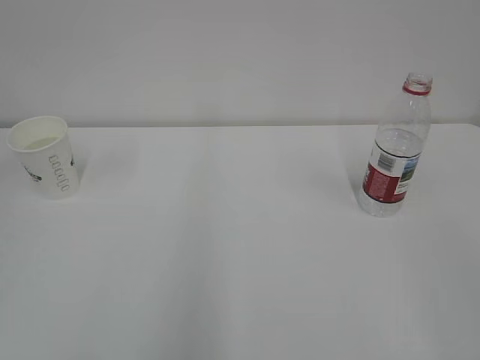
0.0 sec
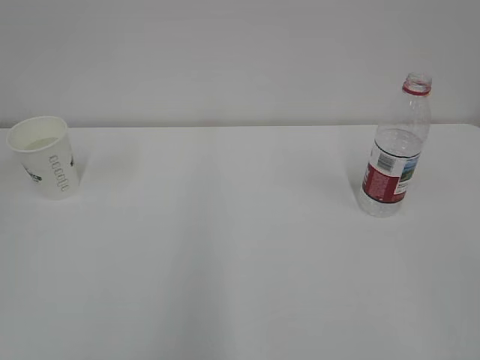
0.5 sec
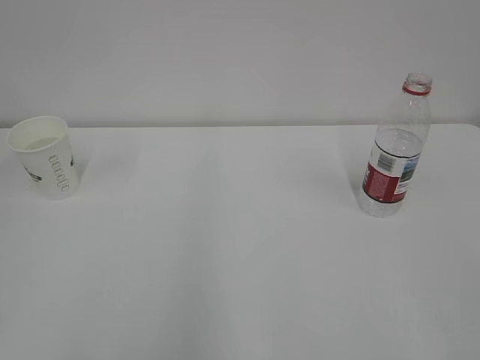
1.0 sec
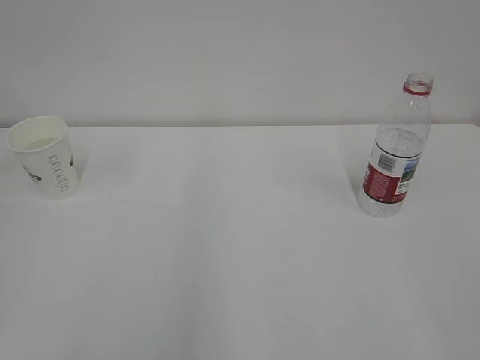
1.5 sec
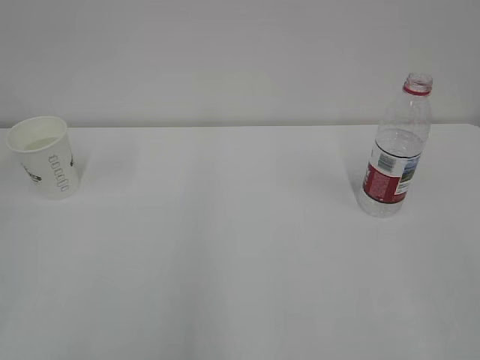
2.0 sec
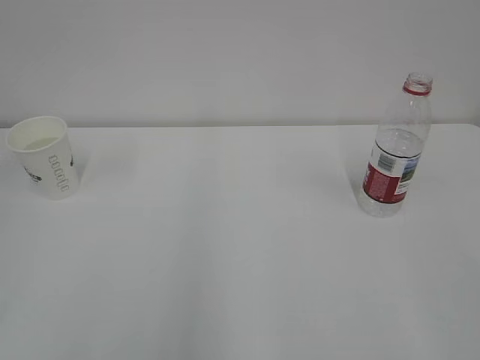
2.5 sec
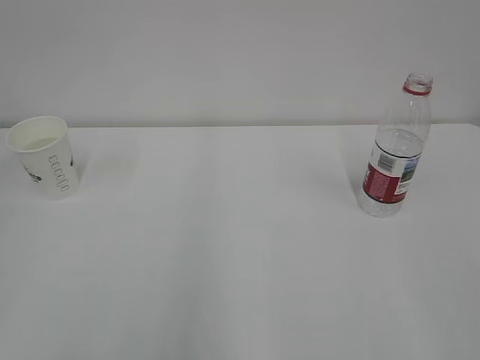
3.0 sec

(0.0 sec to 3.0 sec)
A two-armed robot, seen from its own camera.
1.5 sec - 3.0 sec: Both grippers stay put.

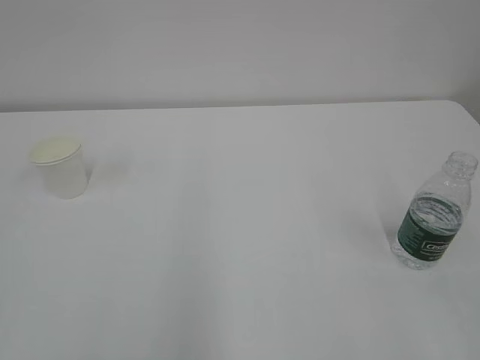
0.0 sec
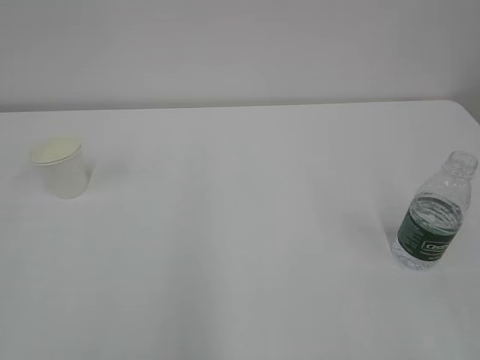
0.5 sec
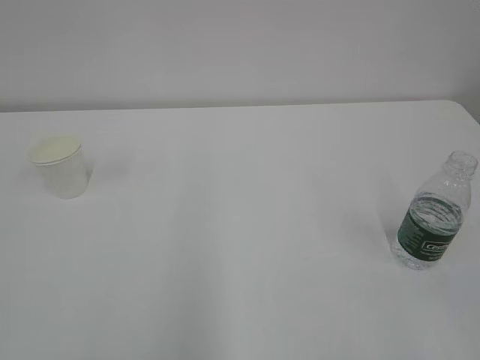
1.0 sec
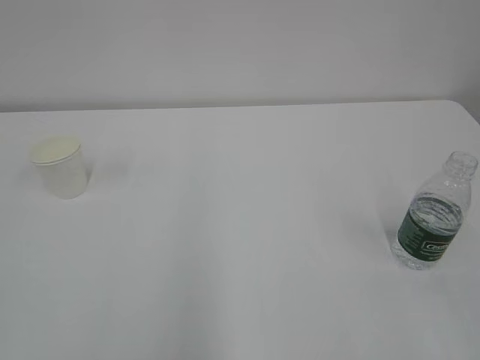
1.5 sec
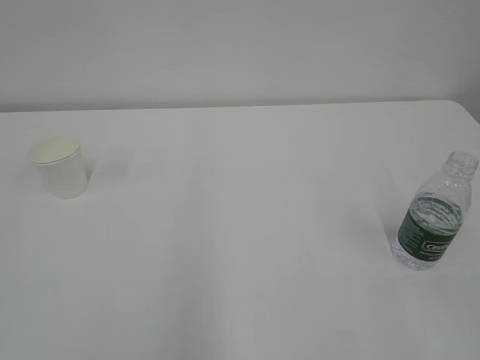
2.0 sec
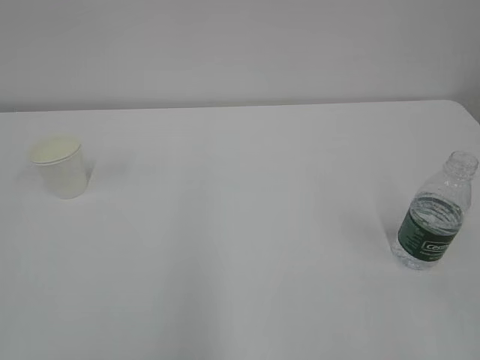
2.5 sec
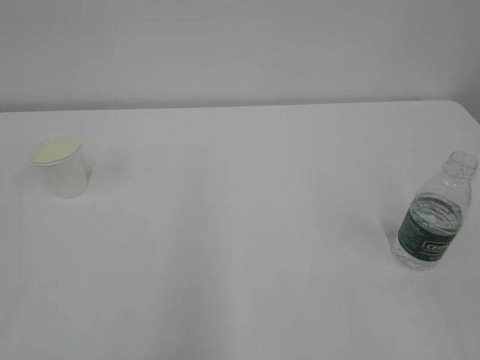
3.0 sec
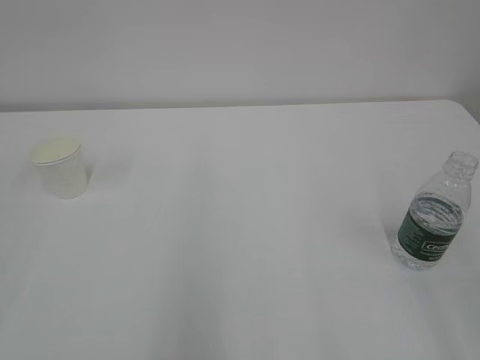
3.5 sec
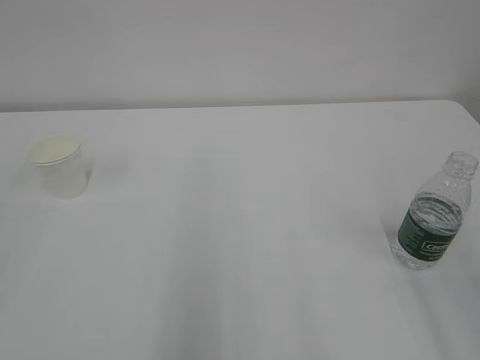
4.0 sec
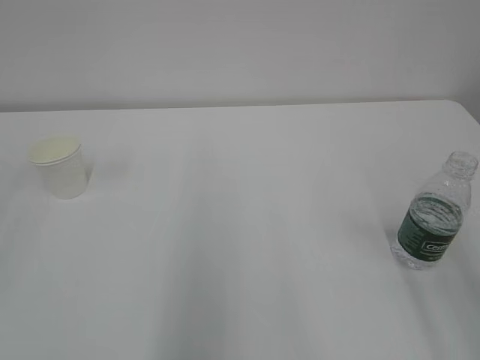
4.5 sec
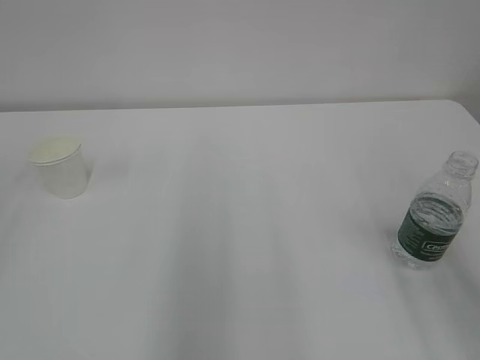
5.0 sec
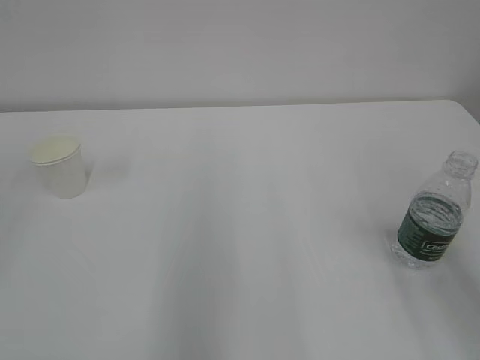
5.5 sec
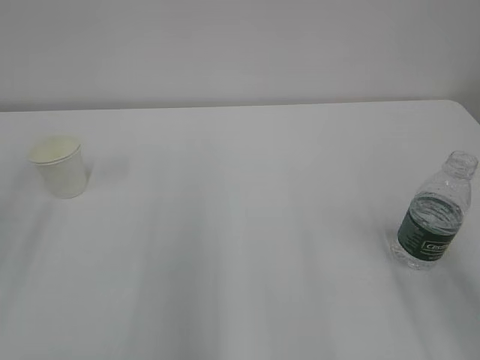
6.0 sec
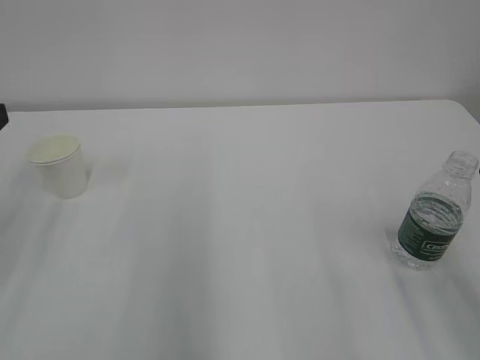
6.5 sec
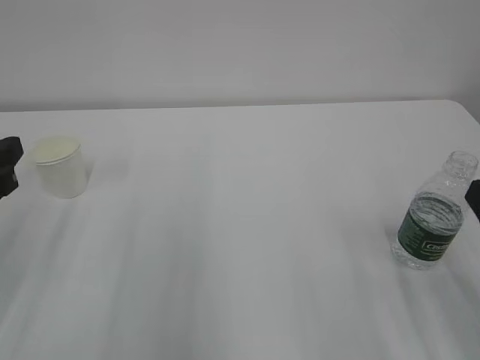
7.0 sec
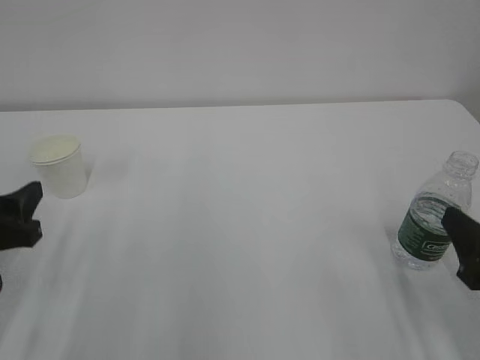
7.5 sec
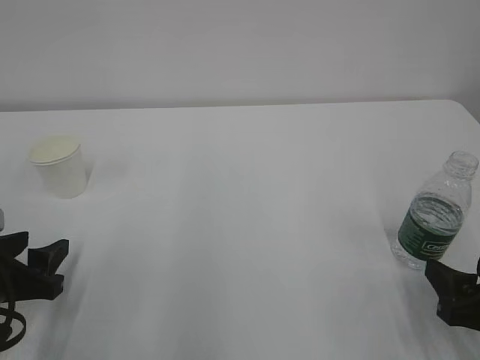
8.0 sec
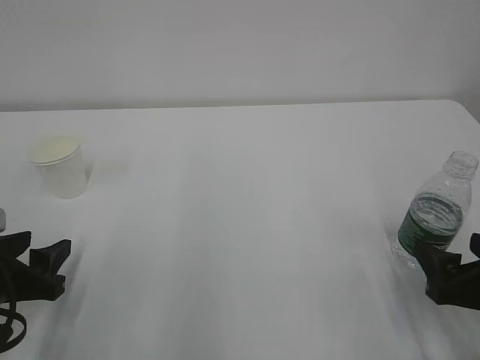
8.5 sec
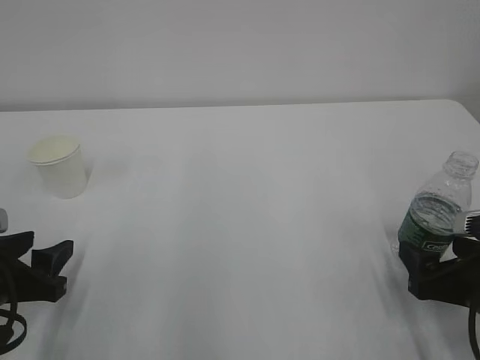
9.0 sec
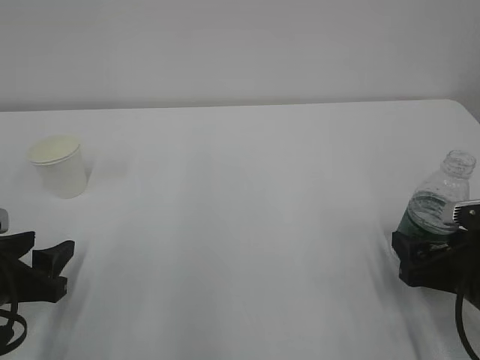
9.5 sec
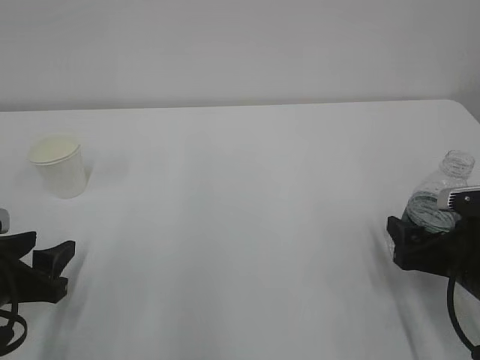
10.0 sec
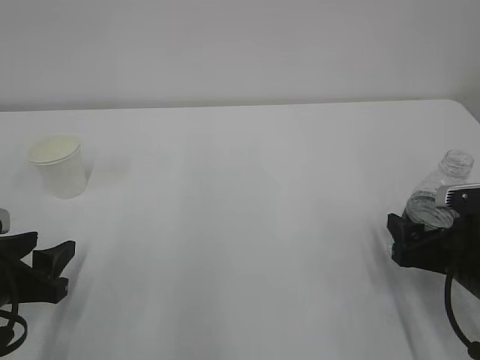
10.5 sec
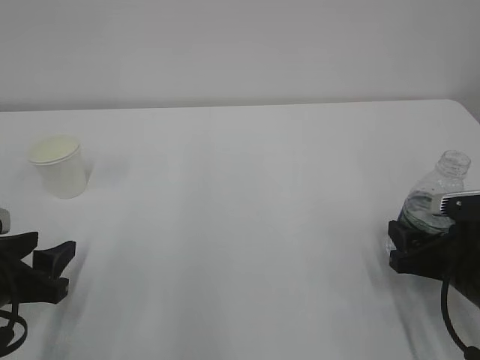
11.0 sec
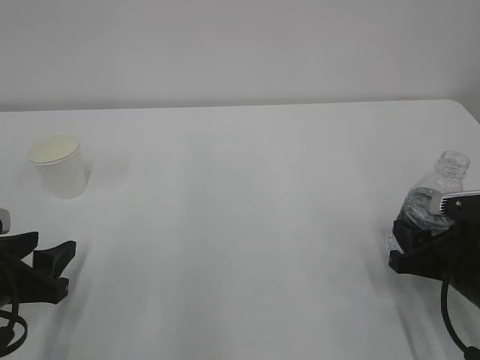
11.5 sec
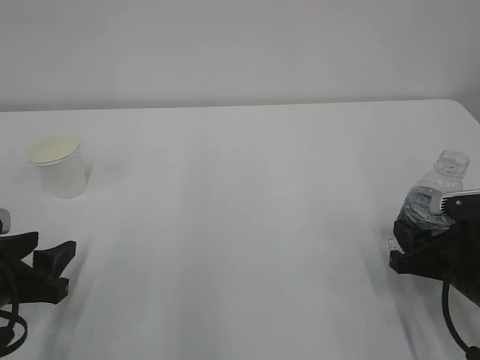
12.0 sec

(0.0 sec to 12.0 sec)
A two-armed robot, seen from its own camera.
6.0 sec - 8.0 sec: The two grippers go some 20 cm downward.
8.0 sec - 10.0 sec: The right gripper moves forward, about 5 cm.
10.0 sec - 12.0 sec: The right gripper closes up.

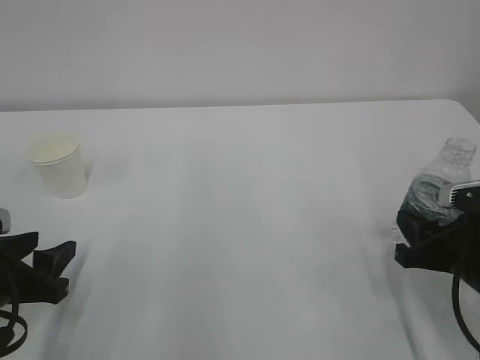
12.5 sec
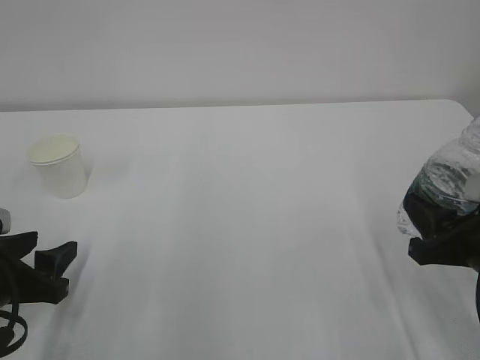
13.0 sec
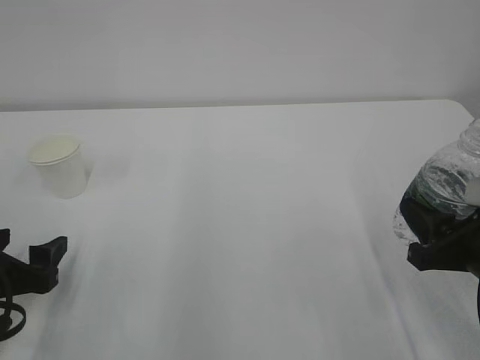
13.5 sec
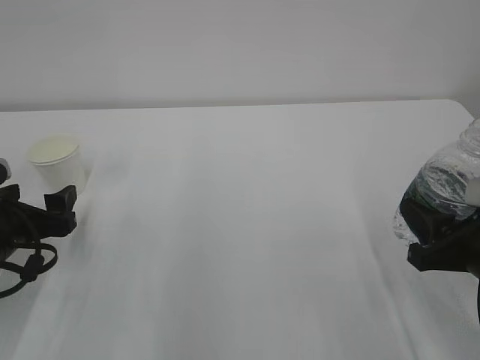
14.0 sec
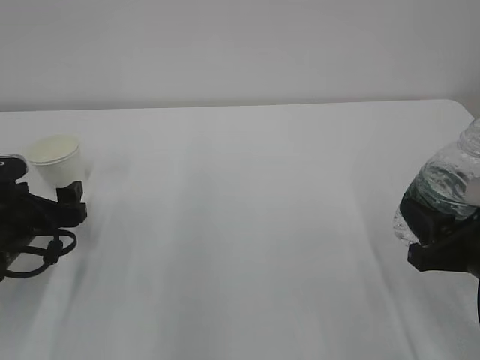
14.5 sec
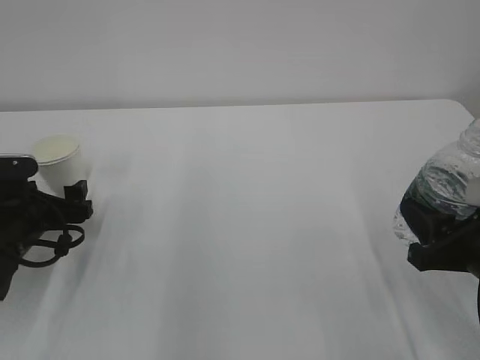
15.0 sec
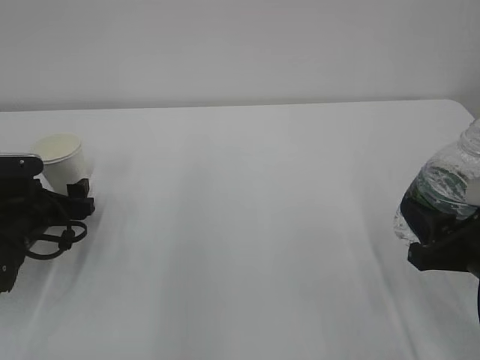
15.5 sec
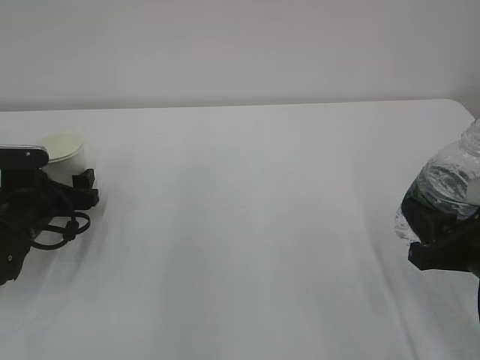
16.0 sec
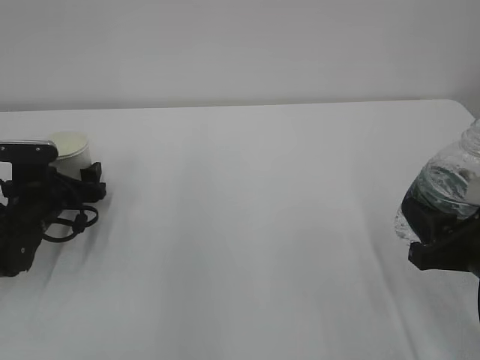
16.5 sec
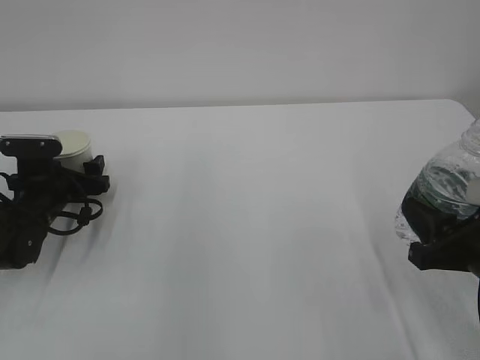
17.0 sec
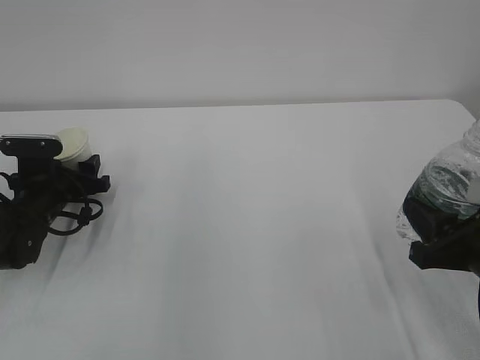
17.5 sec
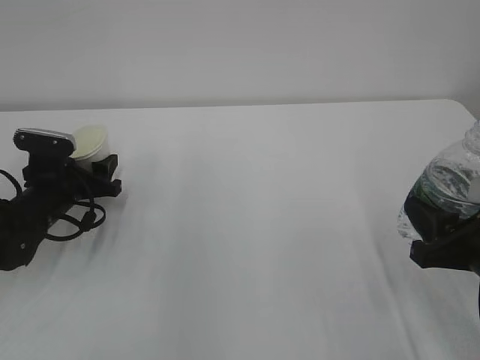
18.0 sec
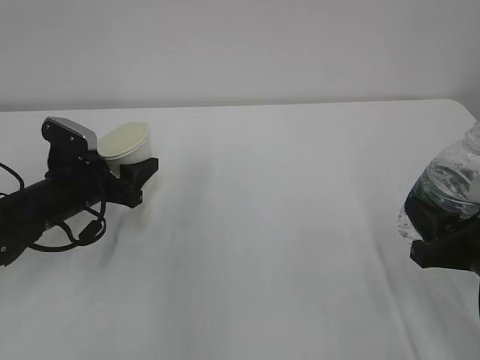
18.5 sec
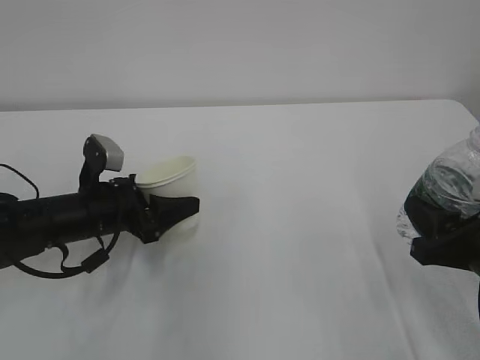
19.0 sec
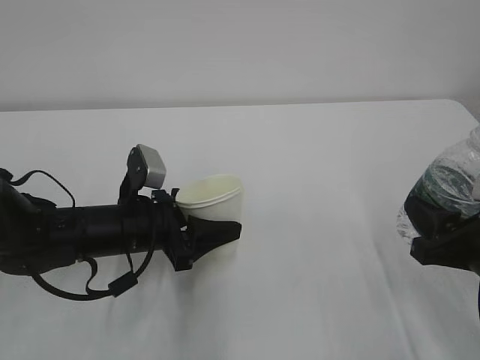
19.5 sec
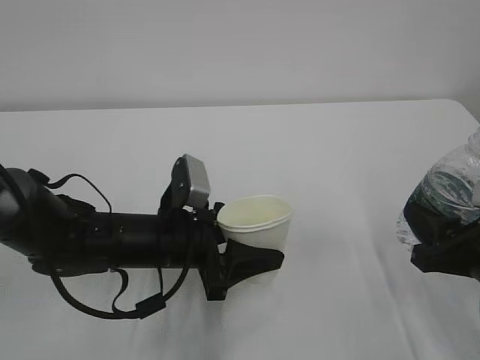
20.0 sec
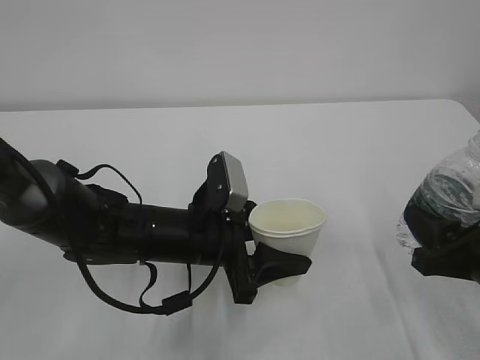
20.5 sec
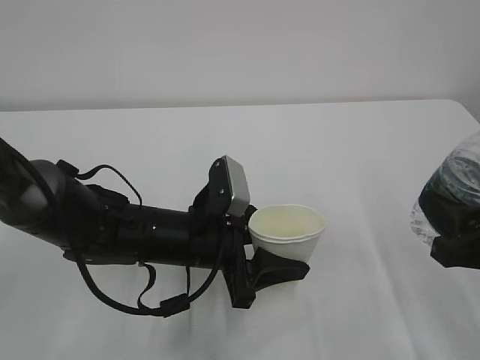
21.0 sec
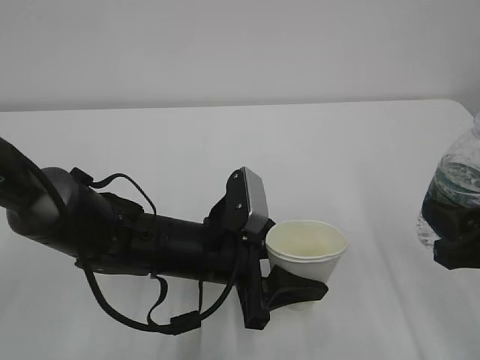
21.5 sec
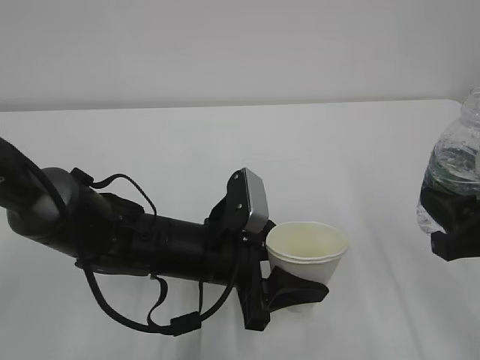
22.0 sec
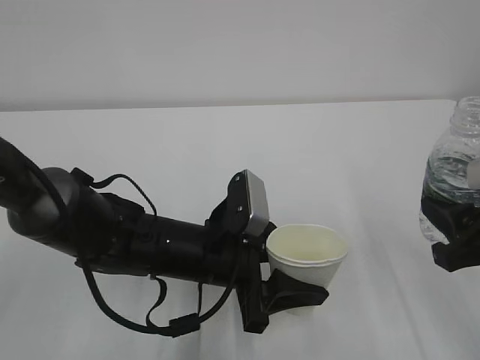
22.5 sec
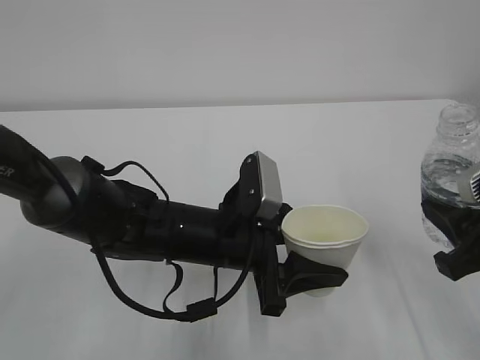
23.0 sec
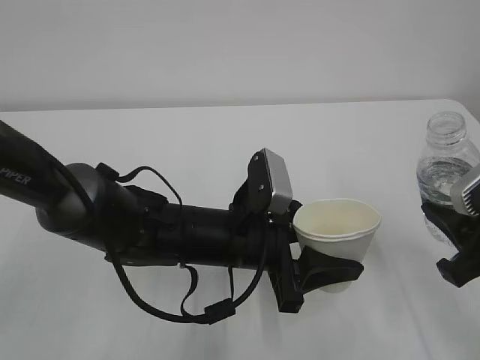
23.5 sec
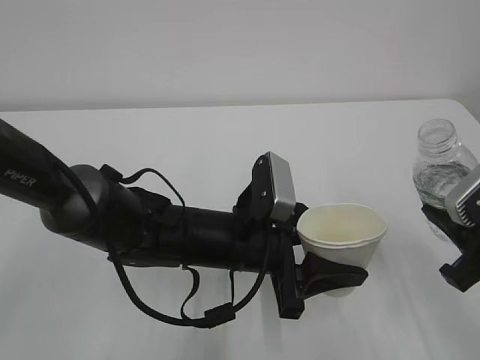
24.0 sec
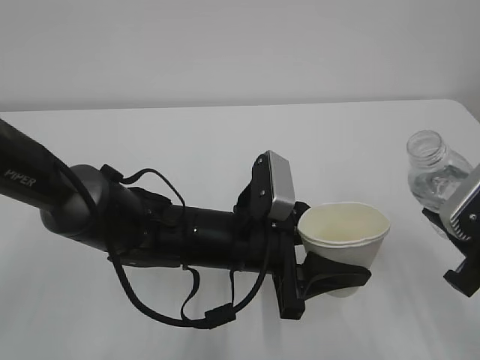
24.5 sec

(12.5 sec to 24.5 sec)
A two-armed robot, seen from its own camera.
12.5 sec - 14.5 sec: The left gripper heads forward, covering roughly 10 cm, and opens.
14.5 sec - 16.5 sec: The left gripper heads forward, covering approximately 10 cm.
16.5 sec - 18.5 sec: The left gripper changes place by some 5 cm, and closes up.
18.5 sec - 20.5 sec: The left gripper heads to the right and backward, covering about 20 cm.
20.5 sec - 22.5 sec: The right gripper heads upward, covering some 5 cm.
